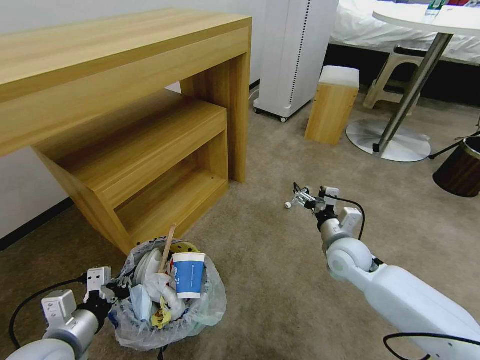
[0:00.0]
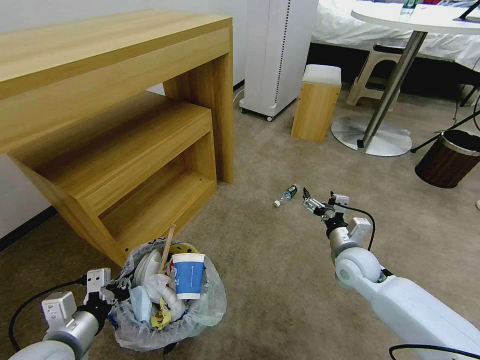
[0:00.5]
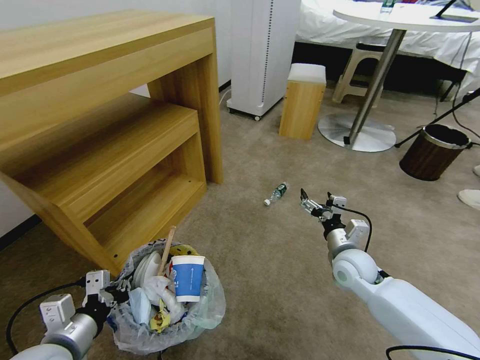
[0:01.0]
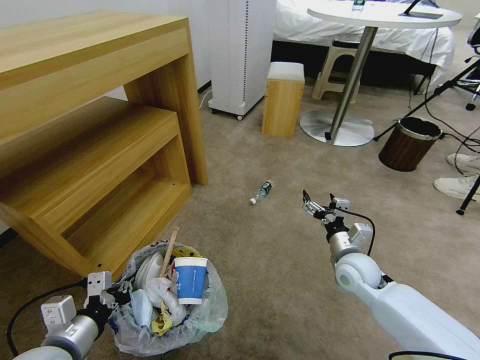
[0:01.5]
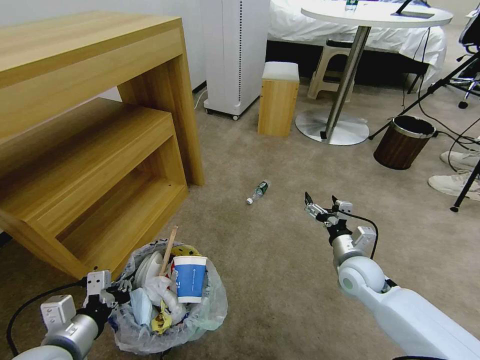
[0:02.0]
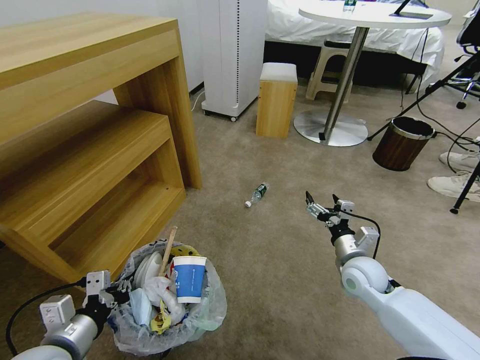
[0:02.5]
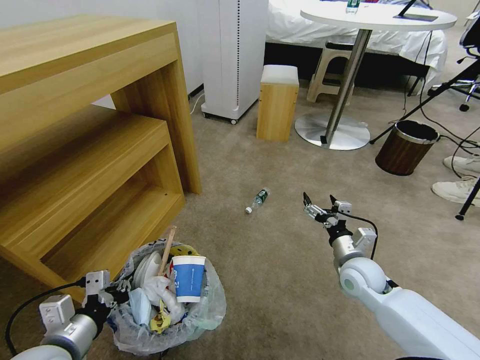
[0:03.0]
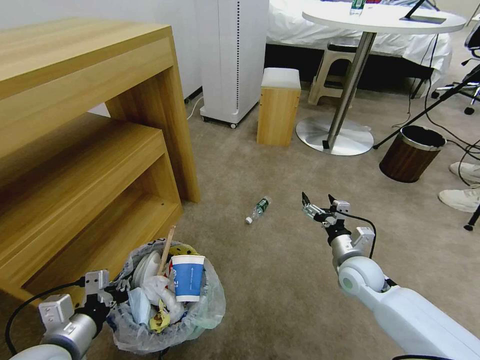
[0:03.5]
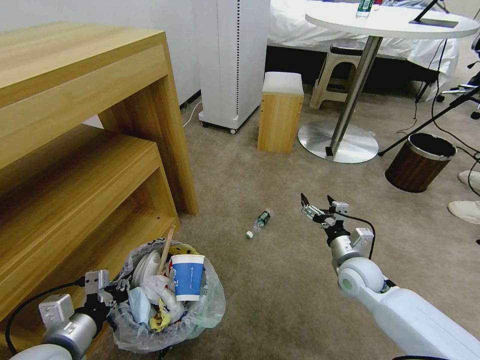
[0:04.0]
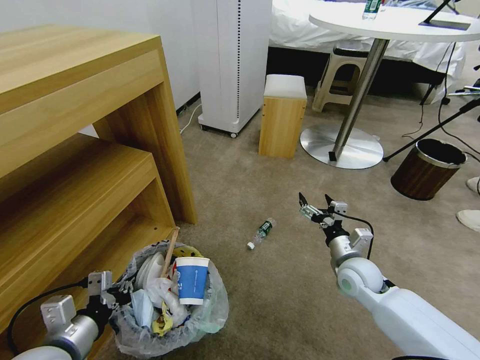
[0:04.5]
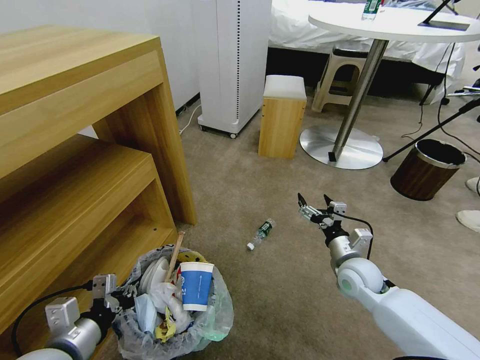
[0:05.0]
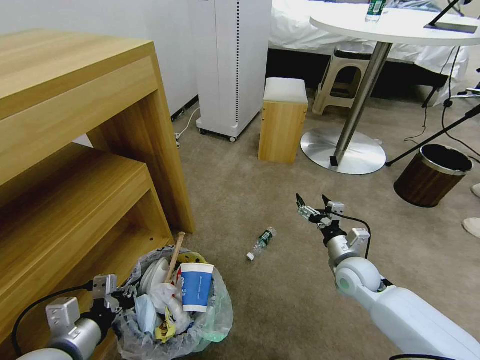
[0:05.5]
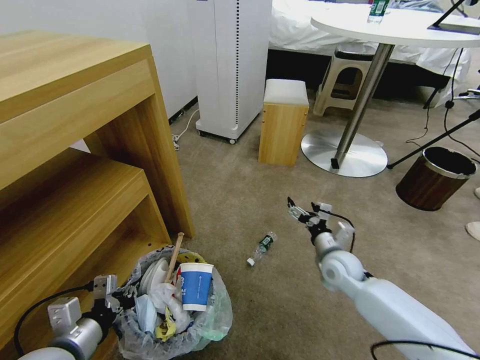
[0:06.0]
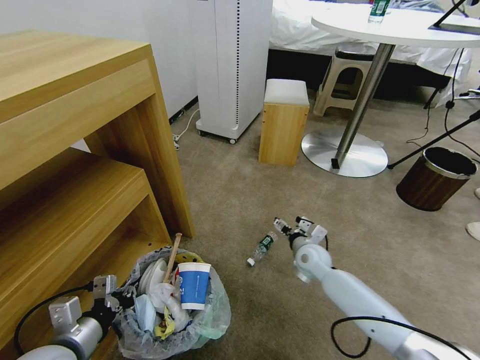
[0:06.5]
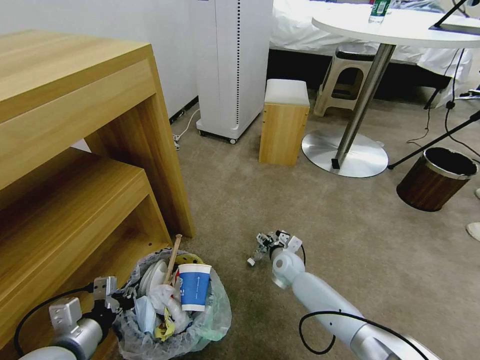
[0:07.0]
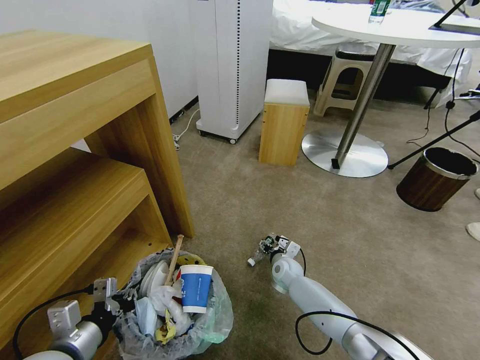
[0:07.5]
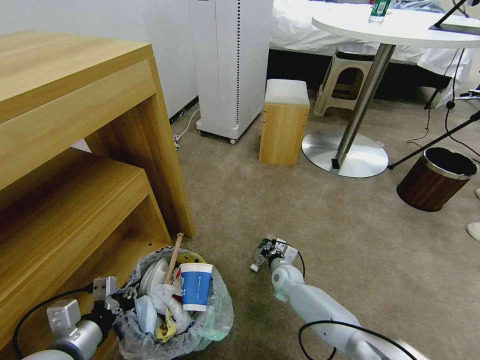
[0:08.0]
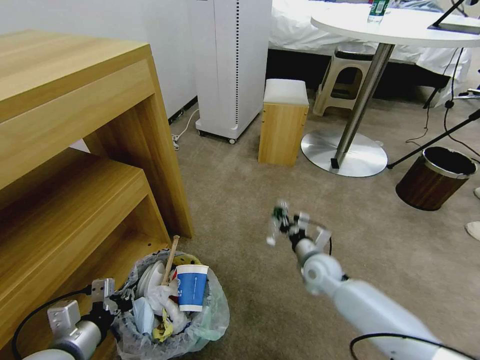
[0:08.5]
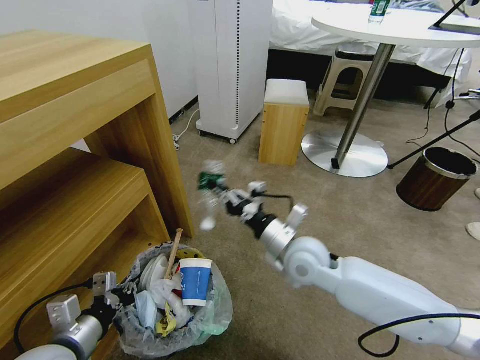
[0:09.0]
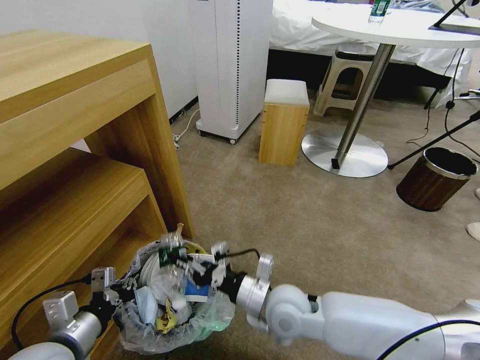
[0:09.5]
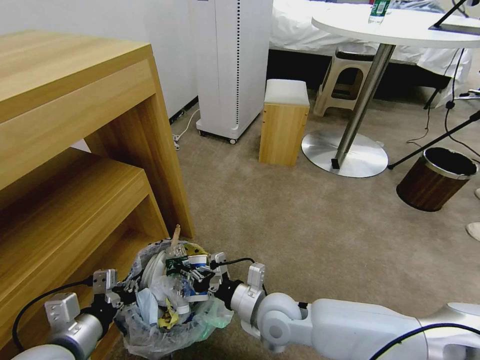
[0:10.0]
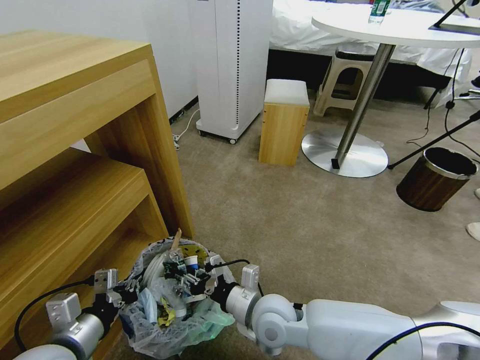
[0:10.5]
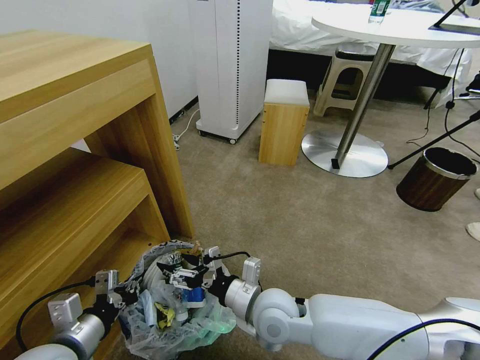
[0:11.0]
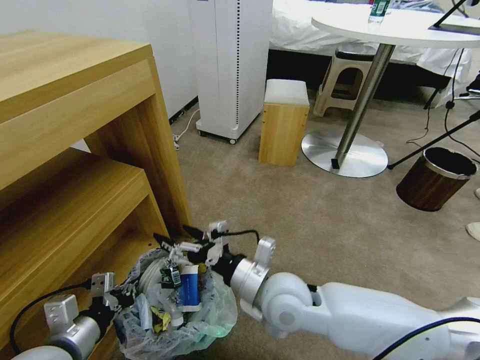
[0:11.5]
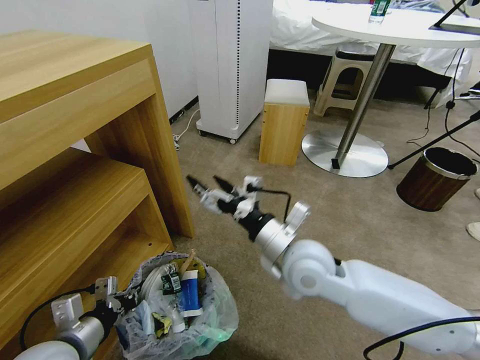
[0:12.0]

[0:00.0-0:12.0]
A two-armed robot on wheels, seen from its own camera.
Task of the whole recording: Pick up the trash bin and place the garbage on the floor into it.
0:00.0 to 0:02.0: The right gripper changes place by about 5 cm.
0:06.0 to 0:08.0: The right gripper shifts approximately 20 cm downward and to the left, and closes.
0:08.0 to 0:10.0: The right gripper travels upward, backward and to the left by about 25 cm.
0:10.0 to 0:12.0: The right gripper is displaced upward by approximately 15 cm, and opens up.

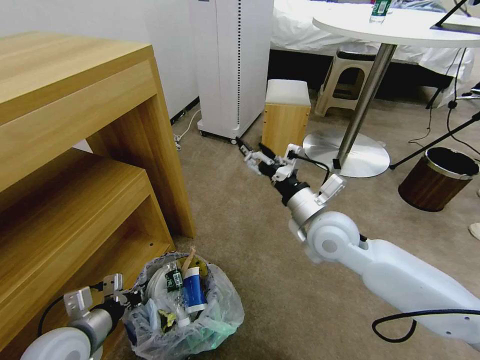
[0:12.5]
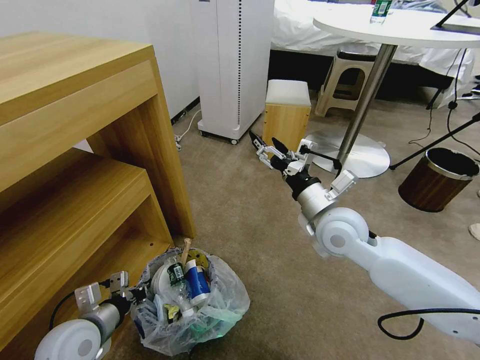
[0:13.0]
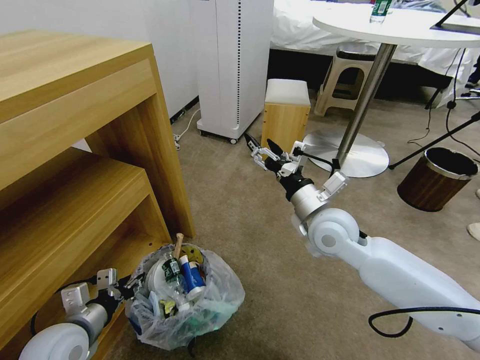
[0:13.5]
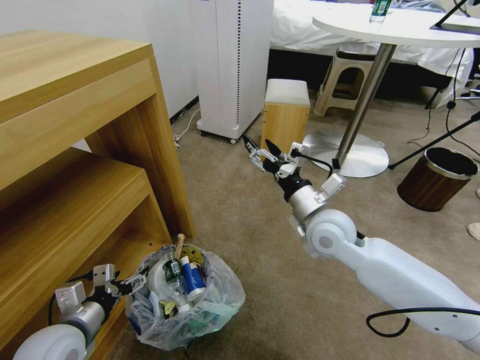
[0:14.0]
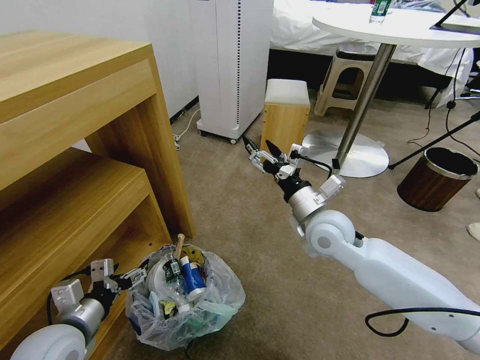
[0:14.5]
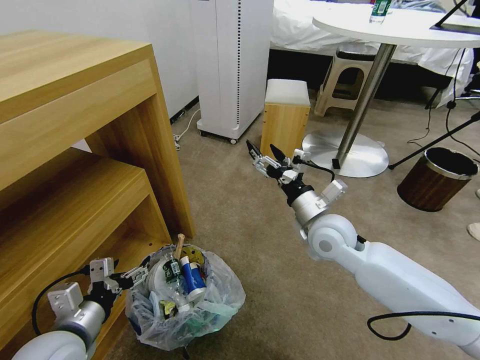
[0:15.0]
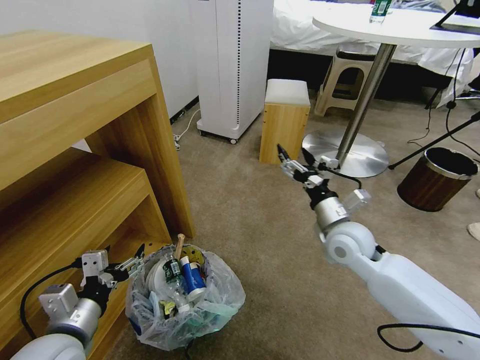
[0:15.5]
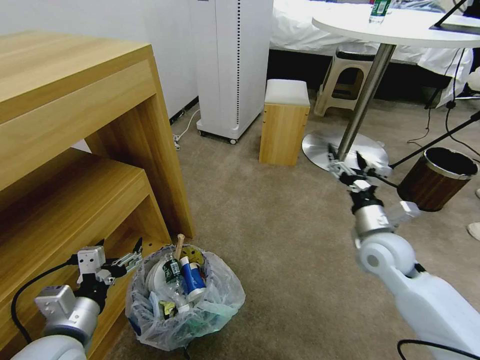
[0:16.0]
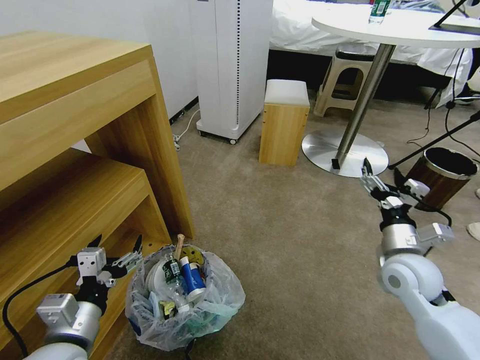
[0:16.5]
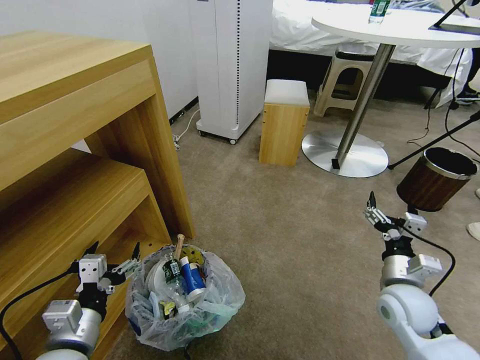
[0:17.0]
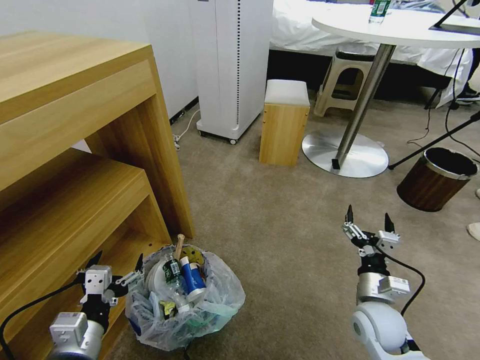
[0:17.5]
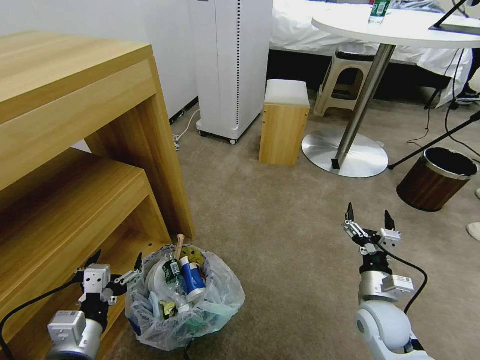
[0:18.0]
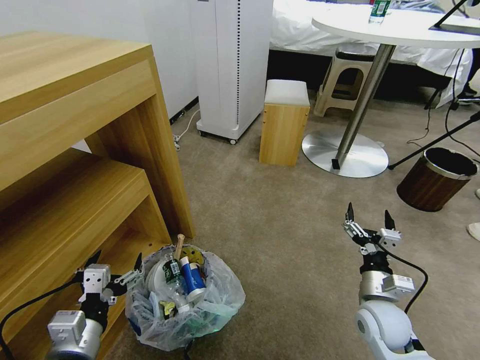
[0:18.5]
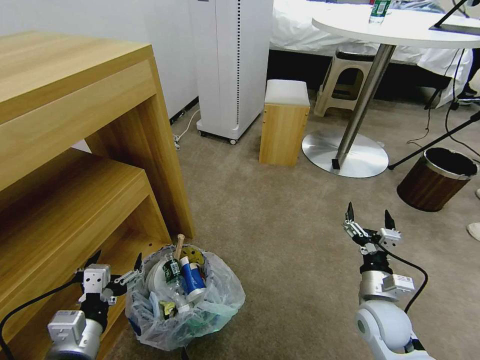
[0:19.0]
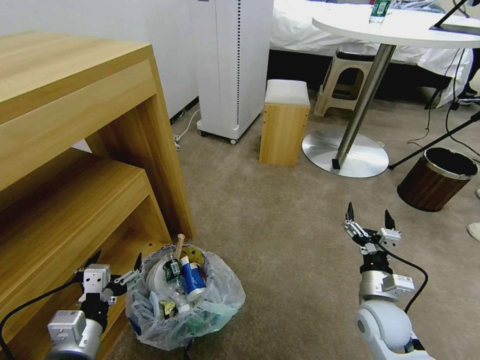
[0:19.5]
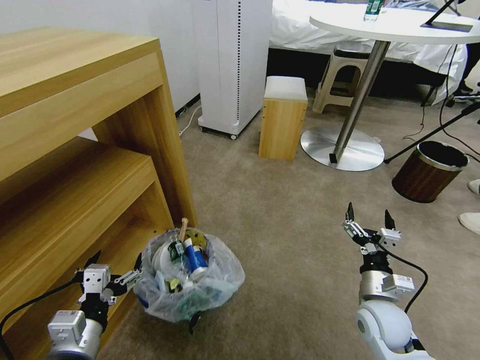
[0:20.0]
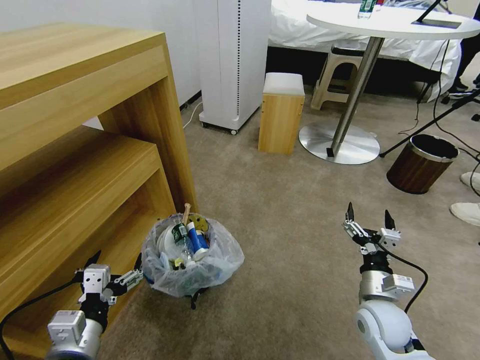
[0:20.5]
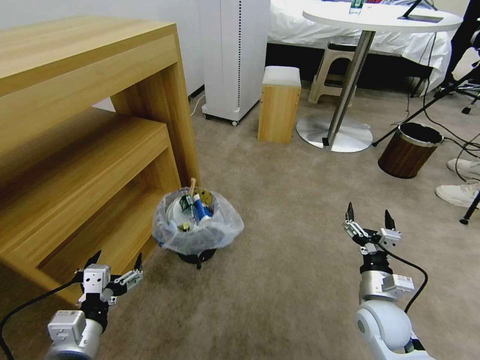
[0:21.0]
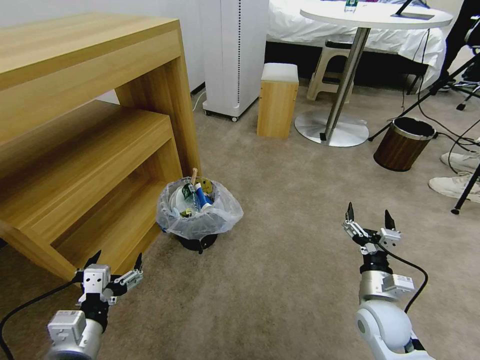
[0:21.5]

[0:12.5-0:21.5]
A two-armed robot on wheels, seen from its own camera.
Task of the whole recording: Pick up the trash bin and place the garbage on the floor into it.
0:12.5 to 0:14.5: The left gripper opens up.
0:14.5 to 0:17.0: The right gripper is displaced to the right, downward and backward by roughly 25 cm. Meanwhile the left gripper shifts by roughly 5 cm.
0:17.0 to 0:19.5: The right gripper changes place by about 5 cm.

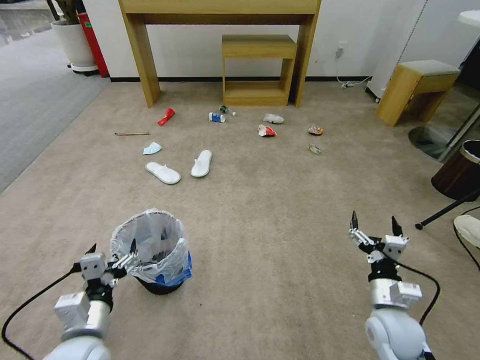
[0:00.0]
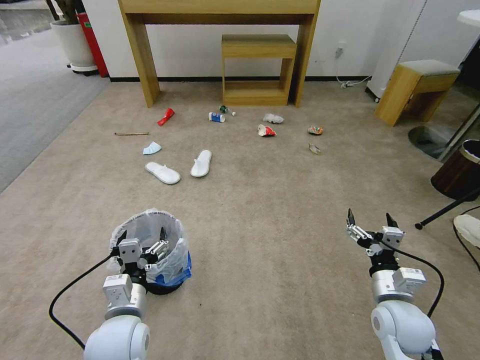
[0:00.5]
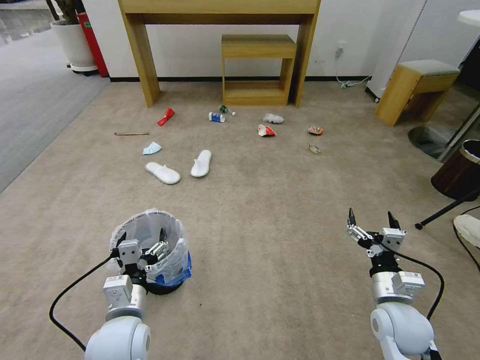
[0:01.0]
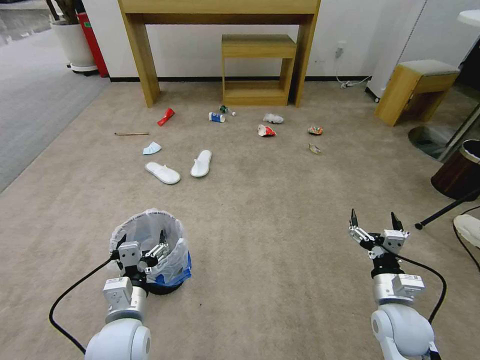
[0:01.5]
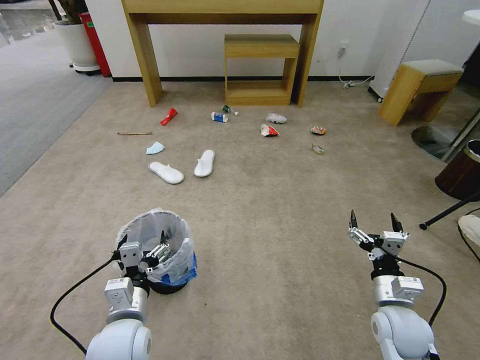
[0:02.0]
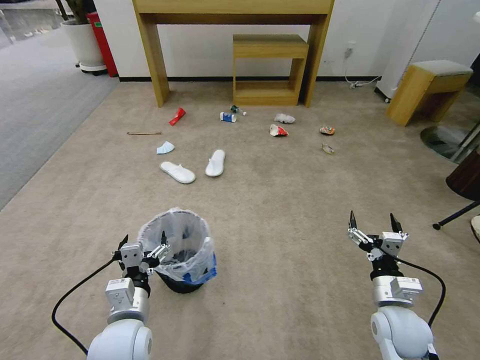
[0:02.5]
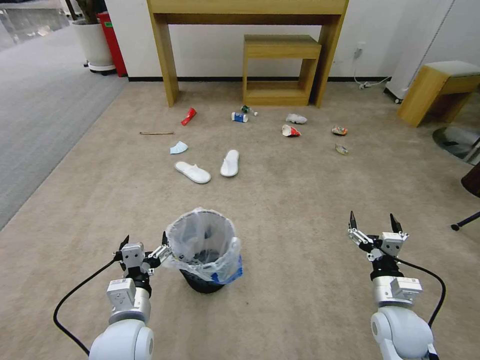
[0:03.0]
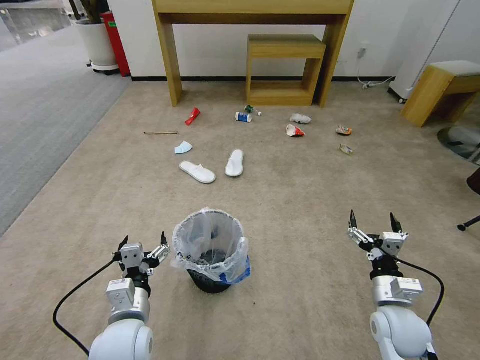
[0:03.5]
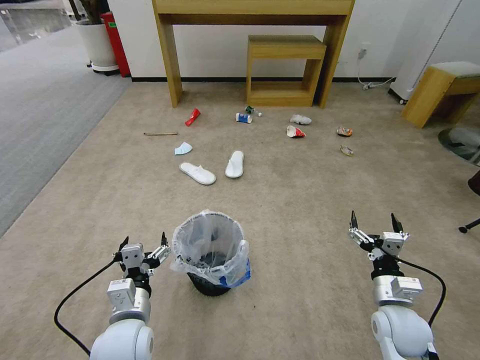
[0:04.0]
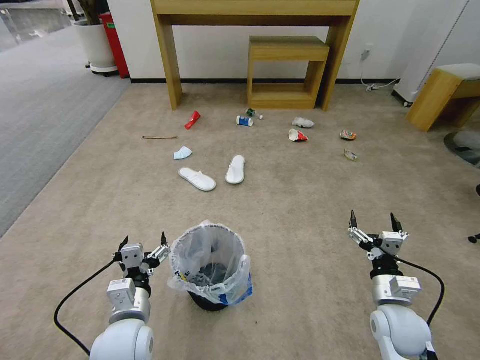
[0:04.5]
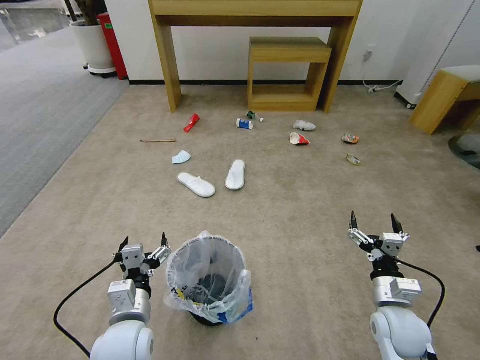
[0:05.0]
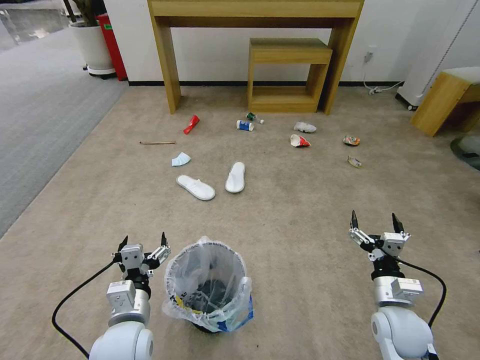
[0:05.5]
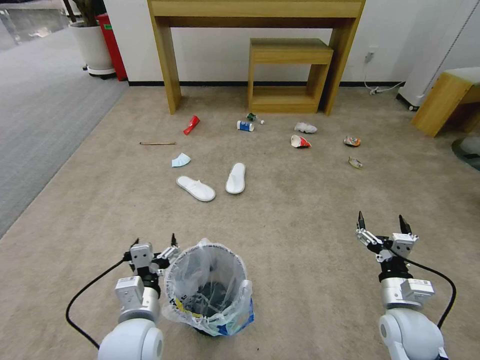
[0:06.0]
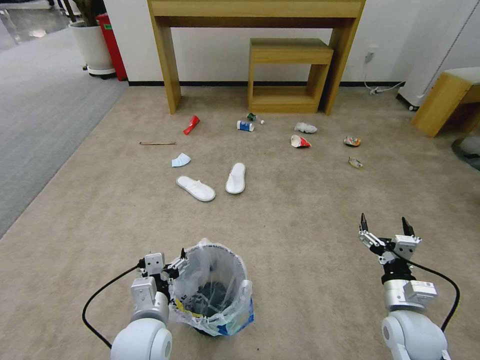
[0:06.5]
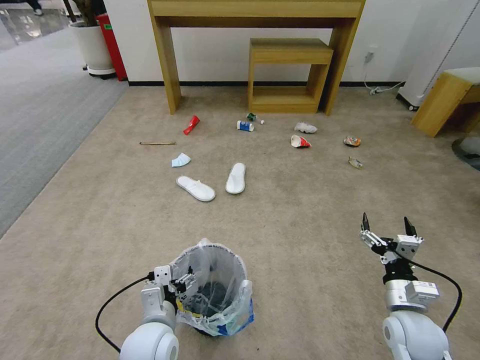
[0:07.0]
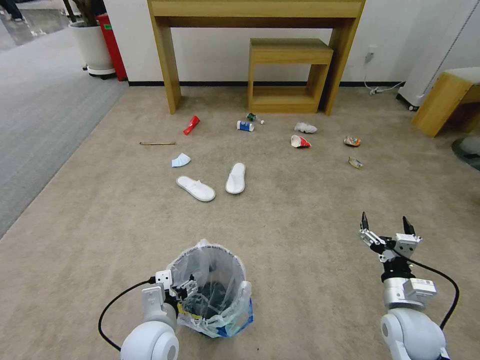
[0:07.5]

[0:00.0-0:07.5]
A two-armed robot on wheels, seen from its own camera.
Task of the whole recording: Pick up the trash bin and place the garbage on the floor into it.
0:04.0 to 0:05.5: Both grippers stay about where they are.
